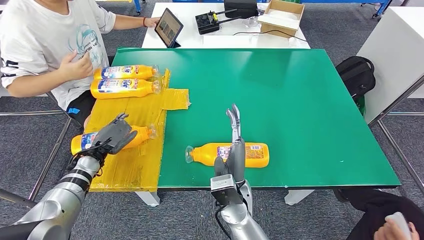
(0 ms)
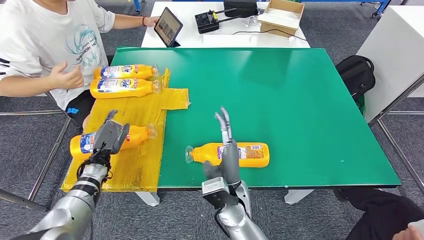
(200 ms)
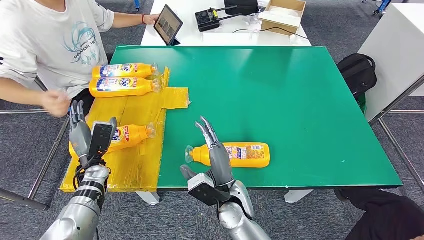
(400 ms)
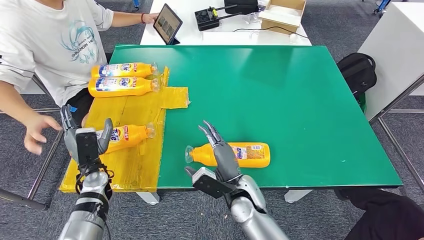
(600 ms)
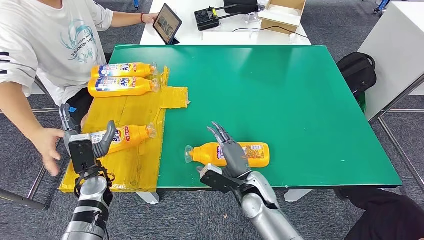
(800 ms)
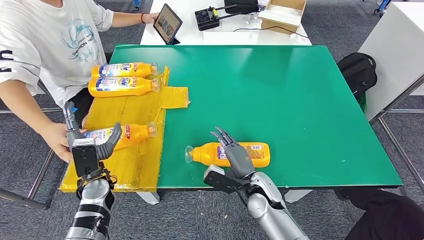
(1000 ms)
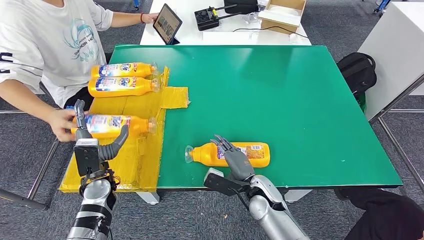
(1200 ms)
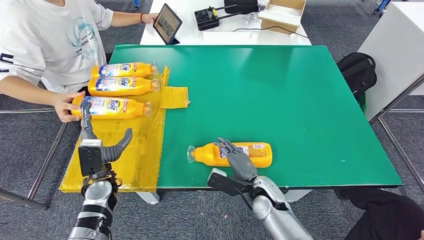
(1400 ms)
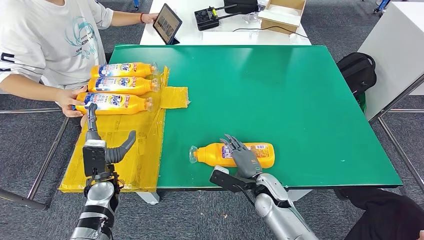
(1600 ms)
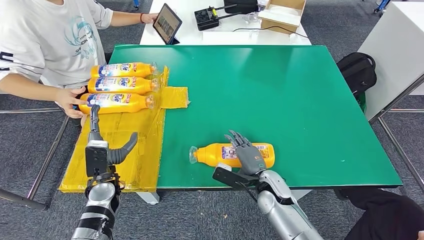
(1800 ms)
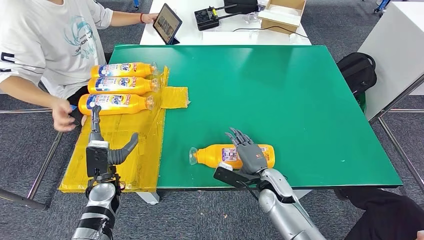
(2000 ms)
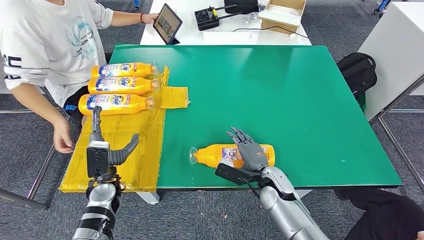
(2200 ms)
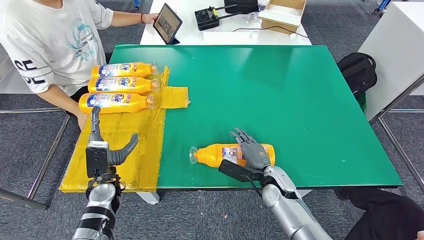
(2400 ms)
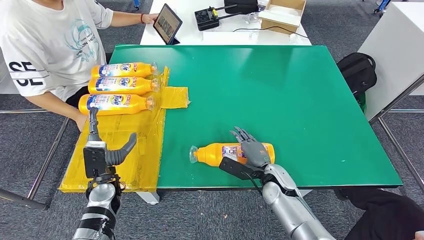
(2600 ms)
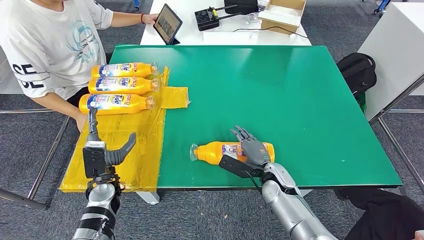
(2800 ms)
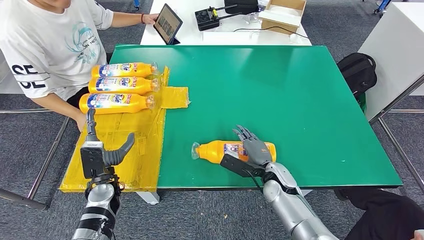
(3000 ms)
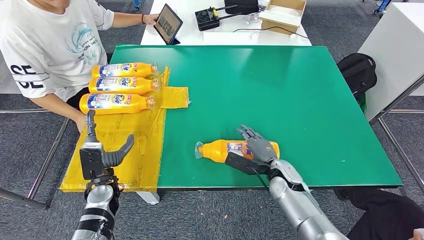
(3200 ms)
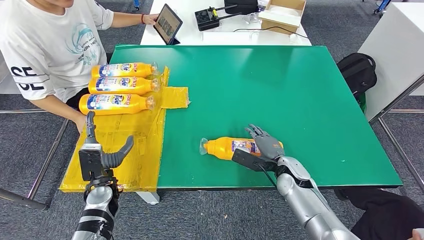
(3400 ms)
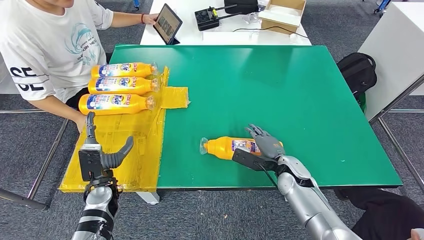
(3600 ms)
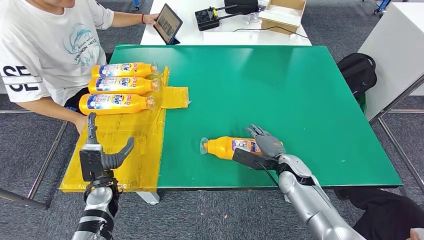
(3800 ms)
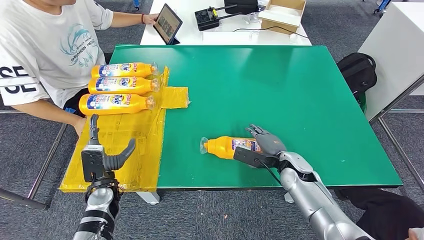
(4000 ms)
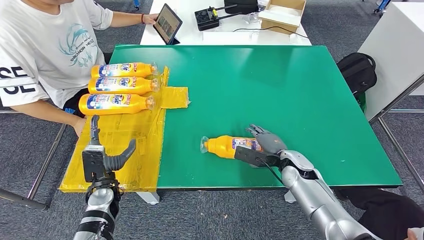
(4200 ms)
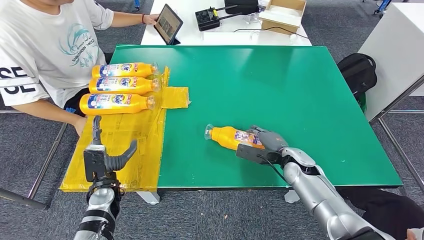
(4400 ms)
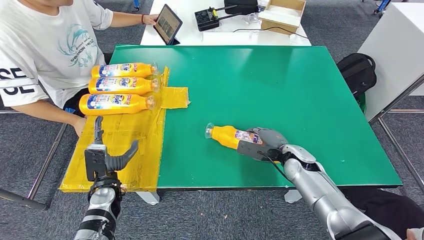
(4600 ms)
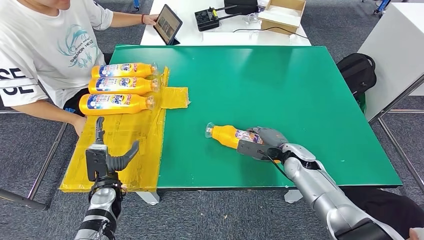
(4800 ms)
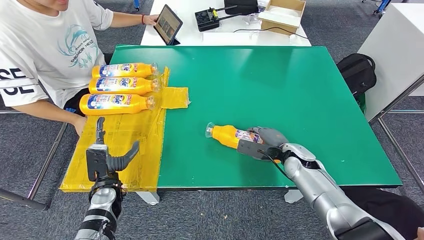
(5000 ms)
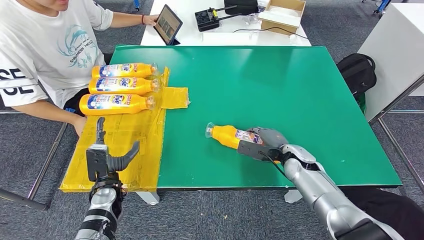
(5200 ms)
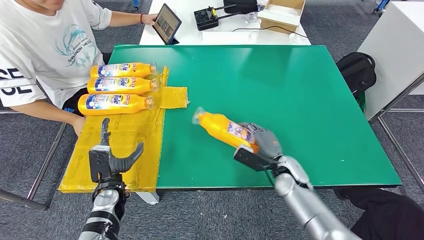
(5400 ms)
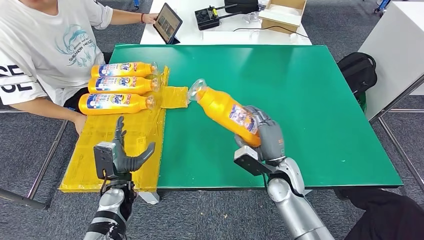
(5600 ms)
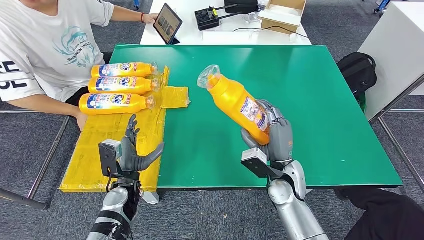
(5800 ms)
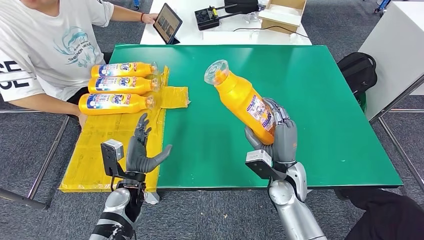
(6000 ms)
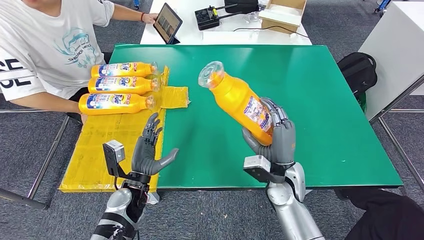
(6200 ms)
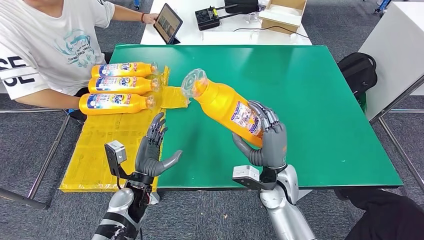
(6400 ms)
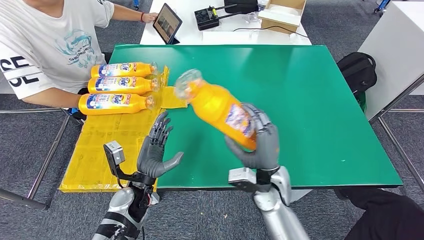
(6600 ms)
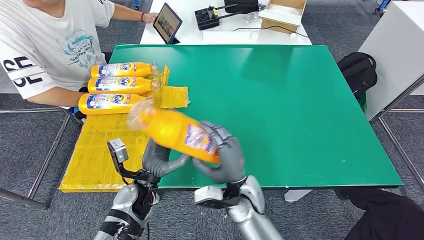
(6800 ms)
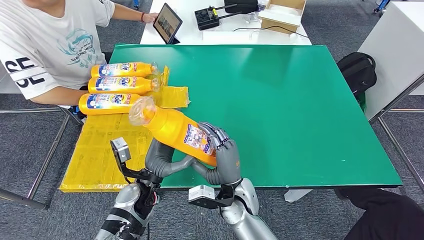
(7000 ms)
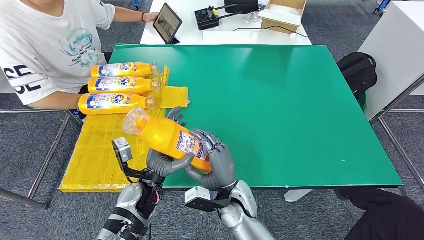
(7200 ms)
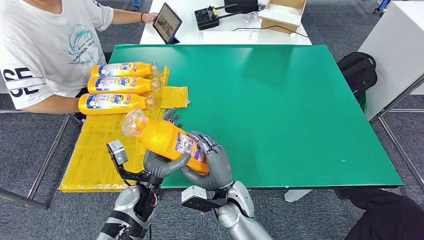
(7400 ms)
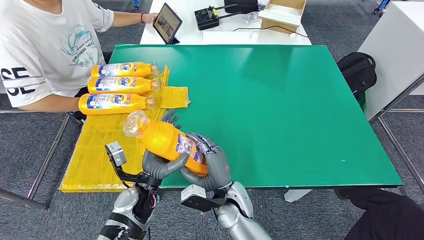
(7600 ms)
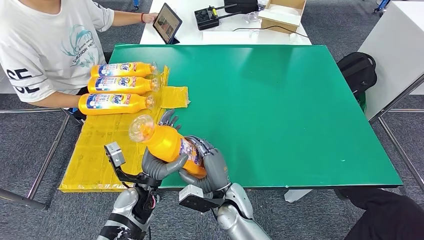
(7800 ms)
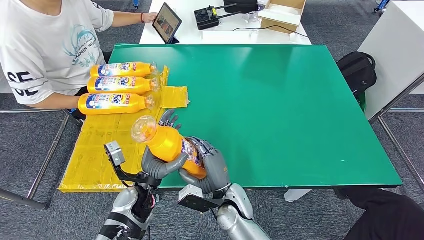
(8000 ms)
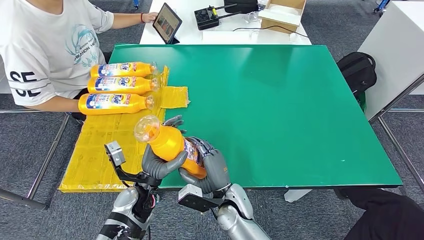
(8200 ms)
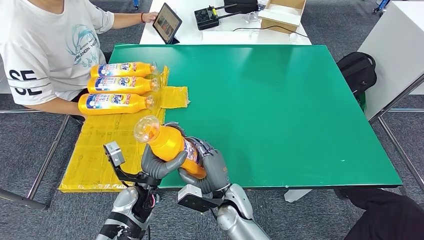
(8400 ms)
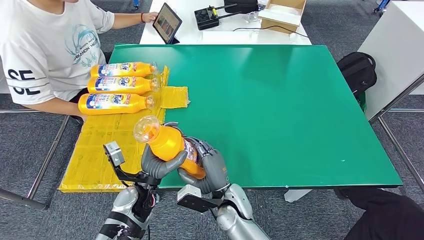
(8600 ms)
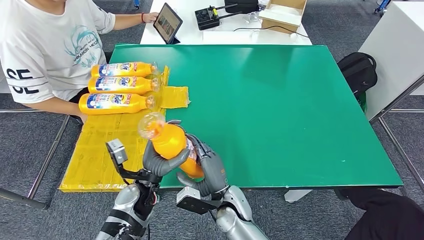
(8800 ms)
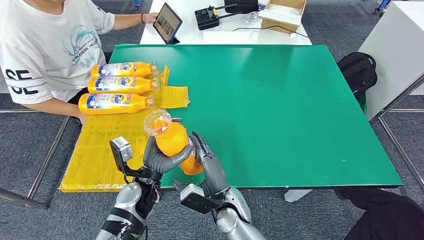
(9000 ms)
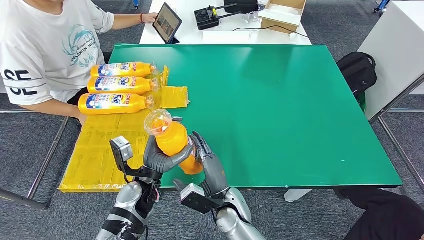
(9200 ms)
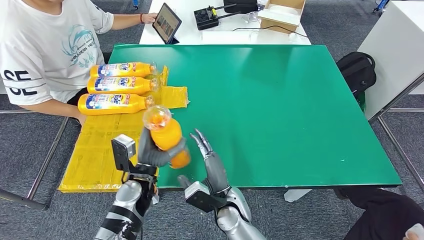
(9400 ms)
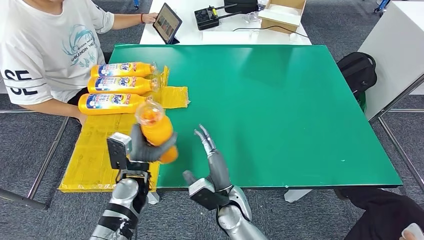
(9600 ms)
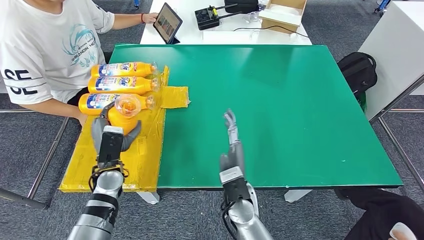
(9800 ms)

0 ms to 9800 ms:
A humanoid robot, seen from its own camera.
Step, 0 ms to 8400 ms: Pick up the fast-moving consumer goods bottle from the table.
1400 ms to 2800 ms: The right hand changes place by about 5 cm.
2800 ms to 4200 ms: The right hand is displaced to the right by some 5 cm.
4200 ms to 5600 ms: The right hand is displaced to the left by roughly 5 cm.
7000 ms to 8400 ms: There are only small adjustments of the hands.
8400 ms to 9800 ms: The left hand moves to the left, about 5 cm.

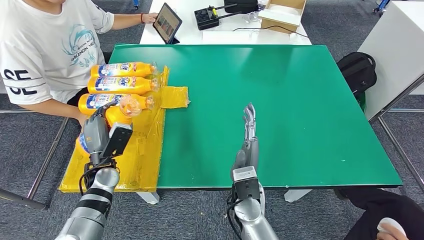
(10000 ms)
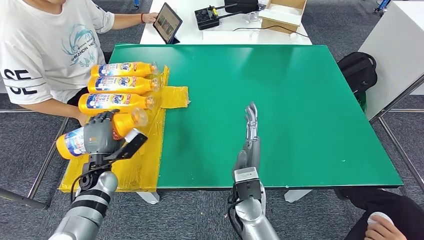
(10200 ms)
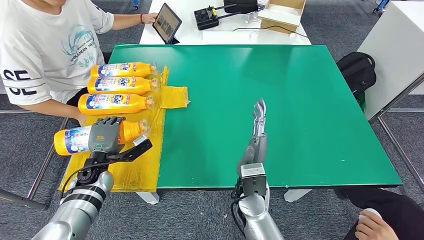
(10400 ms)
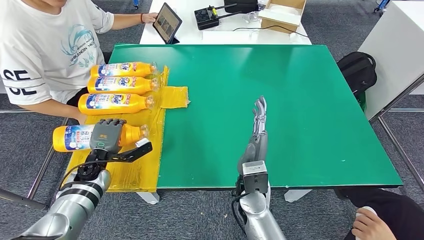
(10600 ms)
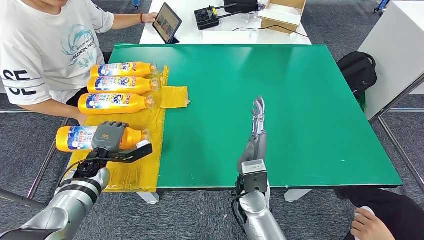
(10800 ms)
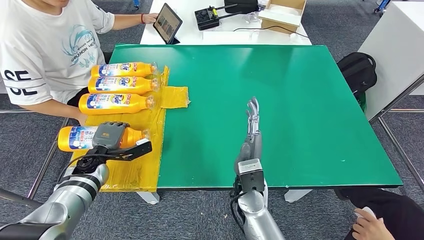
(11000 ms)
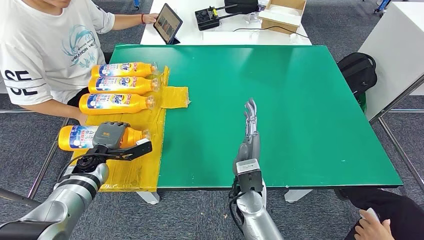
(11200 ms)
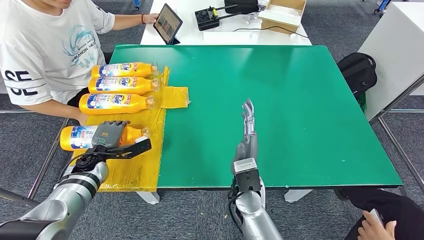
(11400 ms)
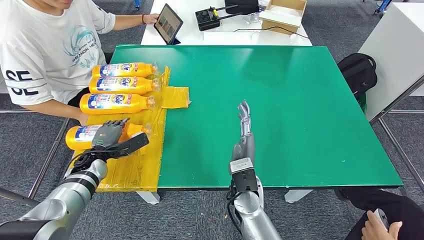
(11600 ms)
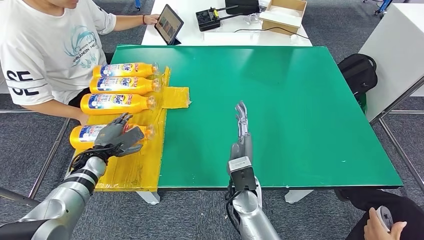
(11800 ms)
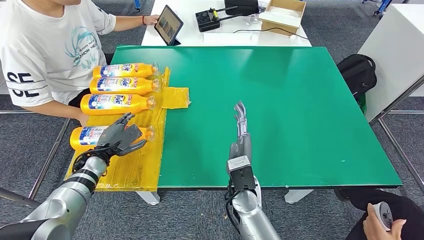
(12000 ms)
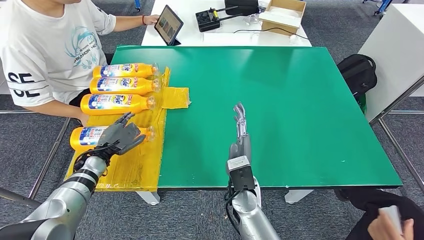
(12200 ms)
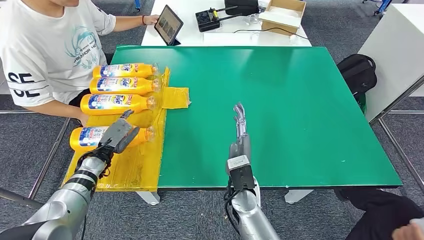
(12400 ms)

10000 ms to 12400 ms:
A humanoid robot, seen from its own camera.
Step, 10000 ms to 12200 ms: Flip the fast-moving consumer goods bottle to the front side.
10000 ms to 11200 ms: The left hand shifts some 5 cm to the left.
